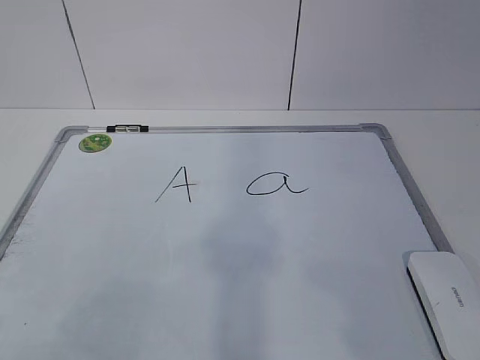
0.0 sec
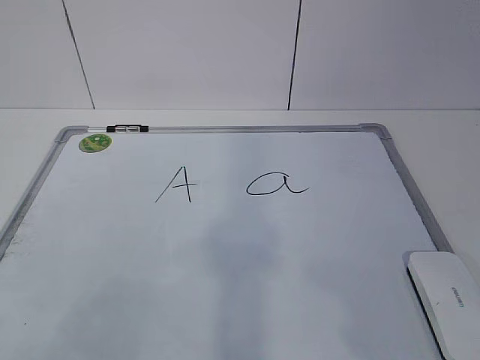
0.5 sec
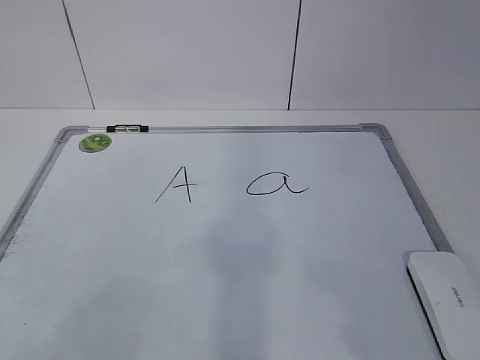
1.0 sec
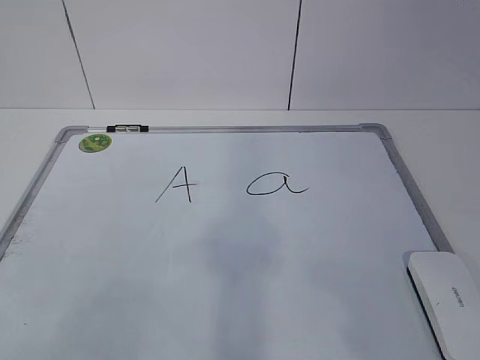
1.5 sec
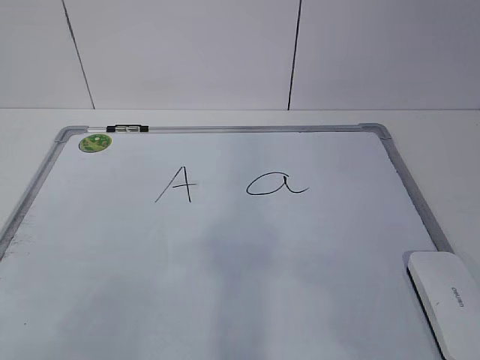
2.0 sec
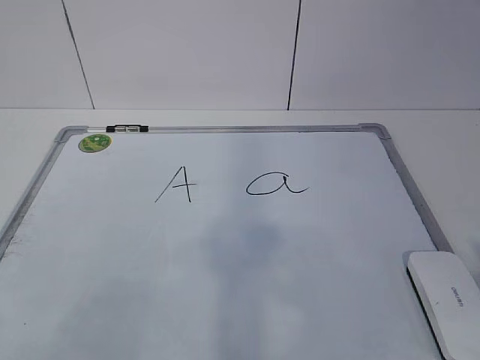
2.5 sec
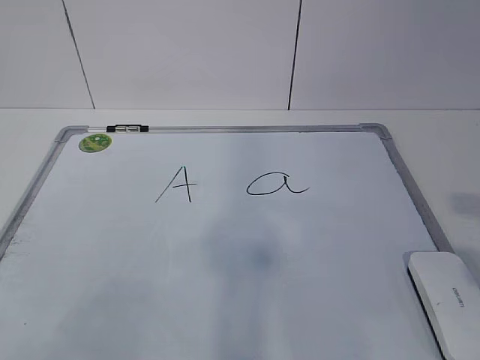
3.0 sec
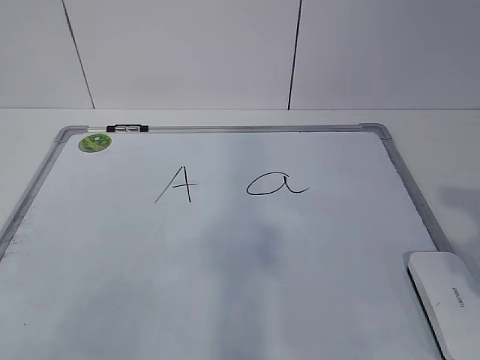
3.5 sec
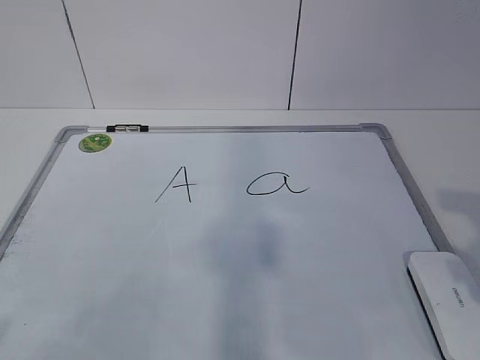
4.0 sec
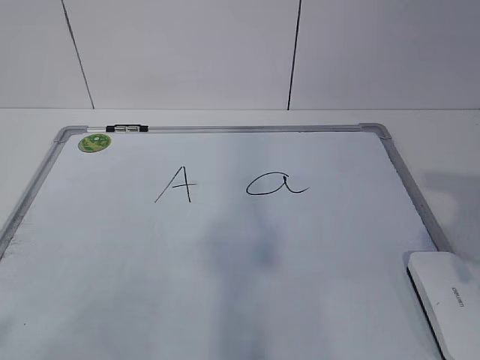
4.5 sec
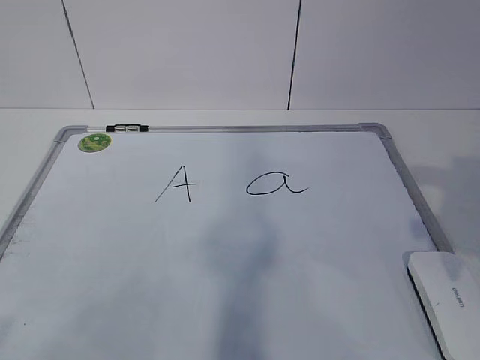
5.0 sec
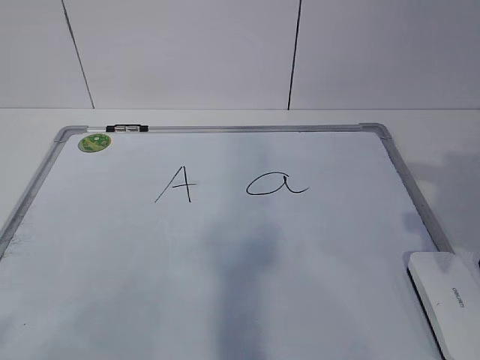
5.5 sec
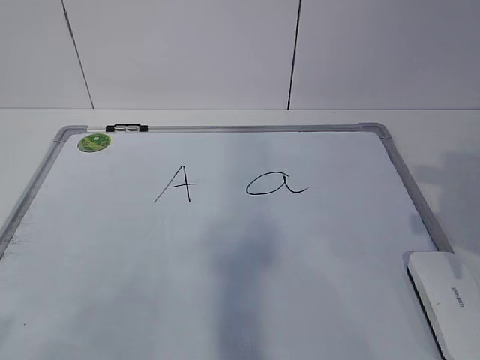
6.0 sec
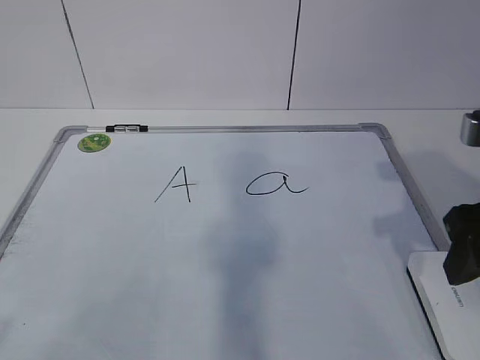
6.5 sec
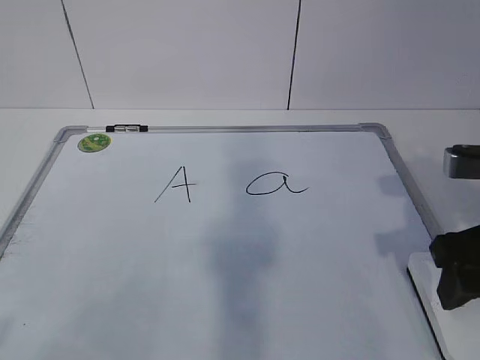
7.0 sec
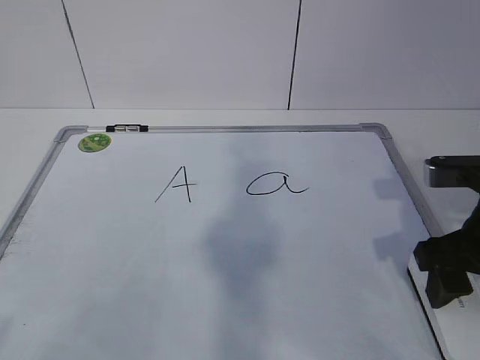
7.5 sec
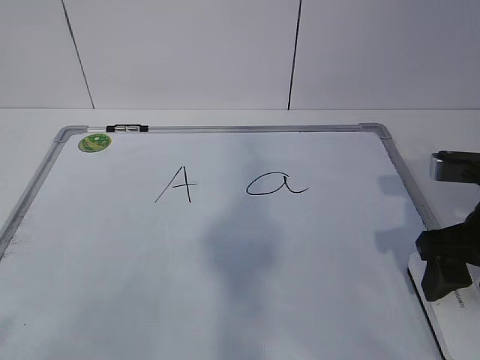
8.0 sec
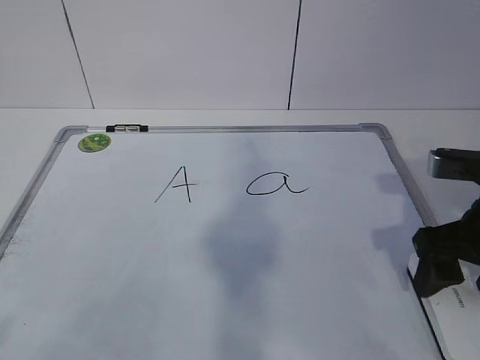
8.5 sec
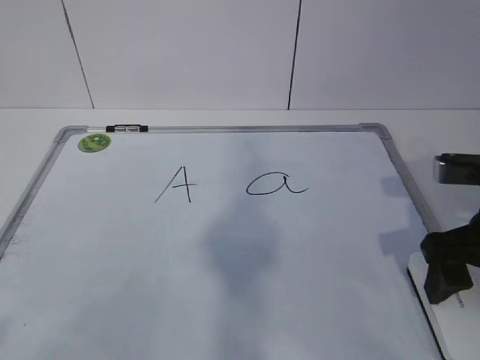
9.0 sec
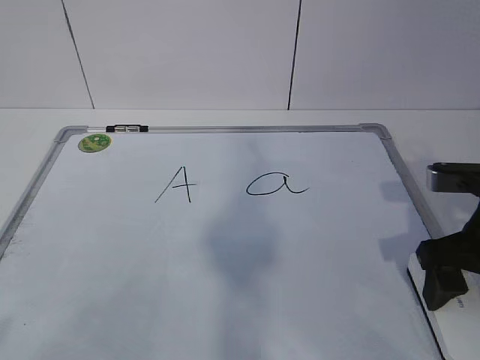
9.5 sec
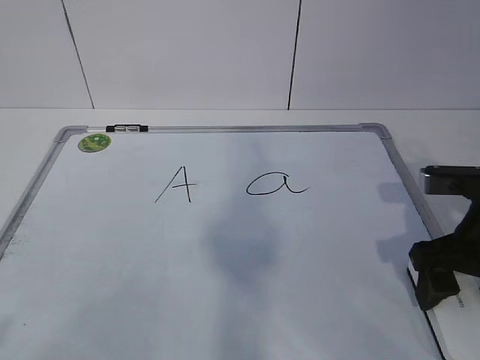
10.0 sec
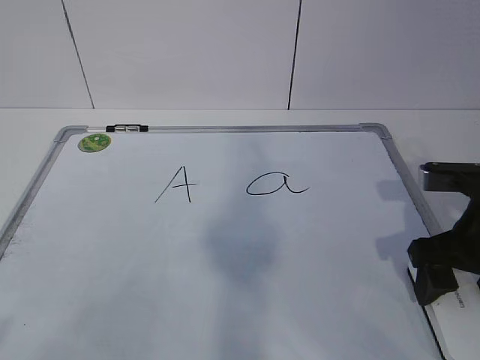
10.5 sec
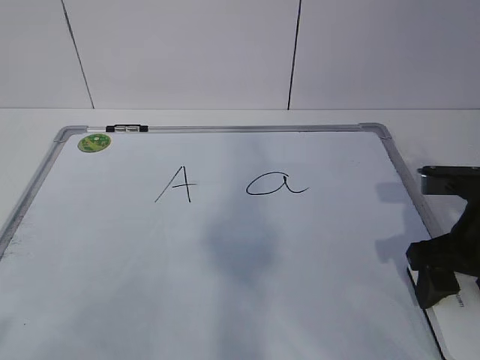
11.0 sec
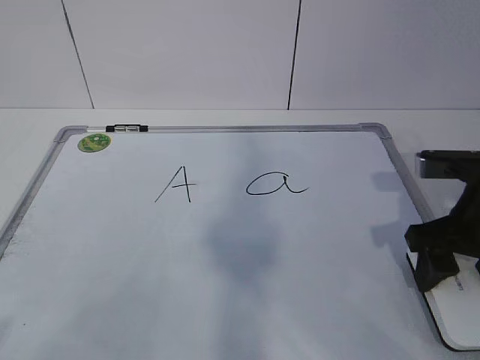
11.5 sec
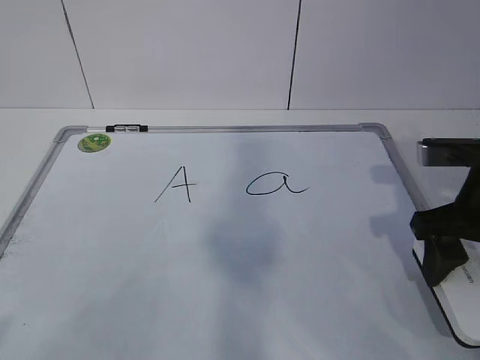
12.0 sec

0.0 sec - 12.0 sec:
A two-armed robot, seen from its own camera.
Task of the whole recording: pick up the eraser on the blackboard and erase the letter "a".
Step, 0.0 sec - 9.0 sec: Grab the eraser with your right hand.
6.0 sec - 8.0 sec: The right gripper goes some 5 cm downward.
8.0 sec - 10.0 sec: The right gripper opens.
10.0 sec - 12.0 sec: The right gripper closes its fingers.

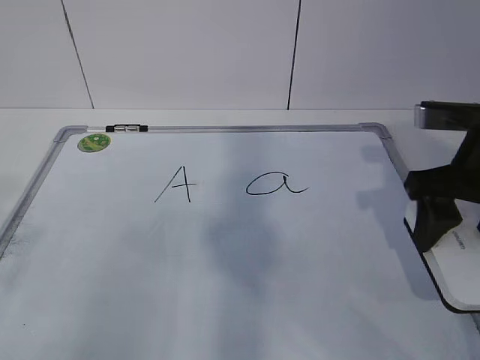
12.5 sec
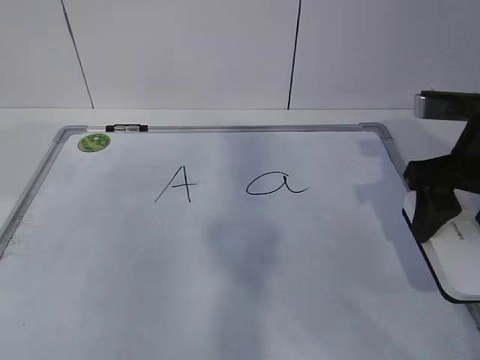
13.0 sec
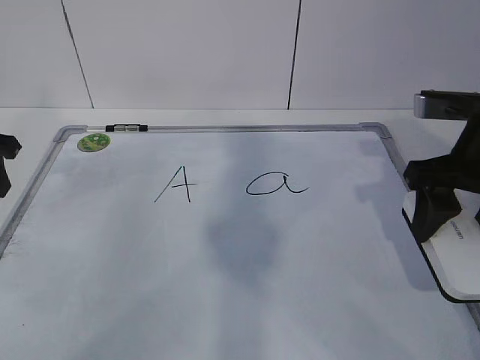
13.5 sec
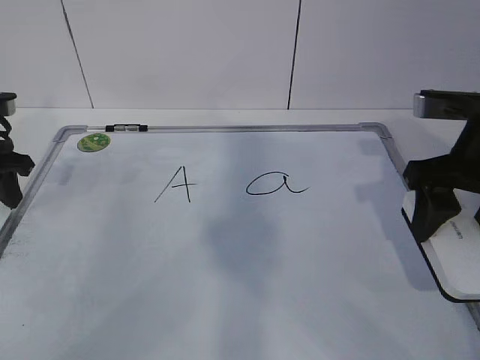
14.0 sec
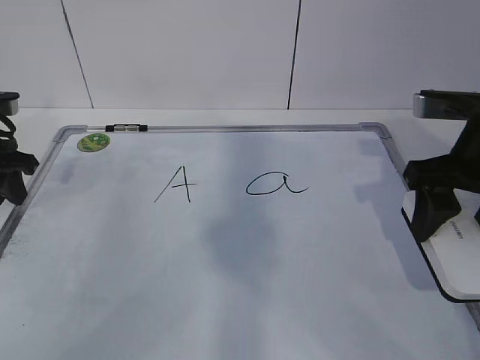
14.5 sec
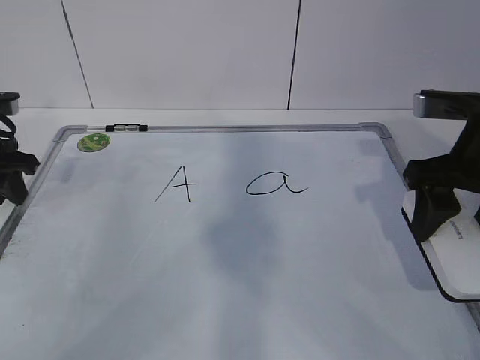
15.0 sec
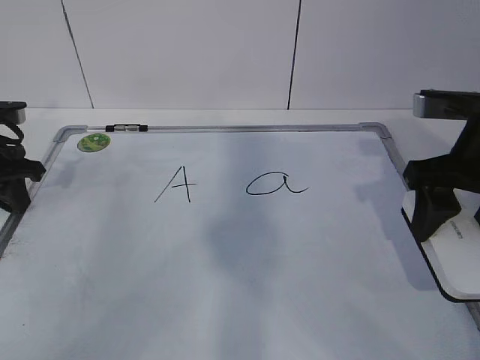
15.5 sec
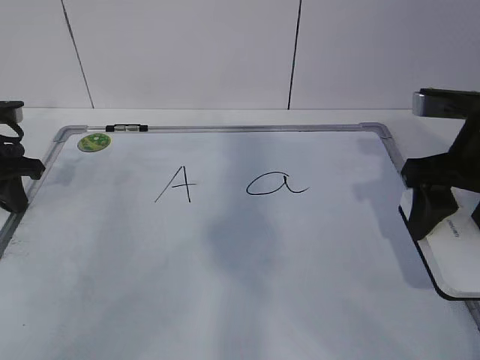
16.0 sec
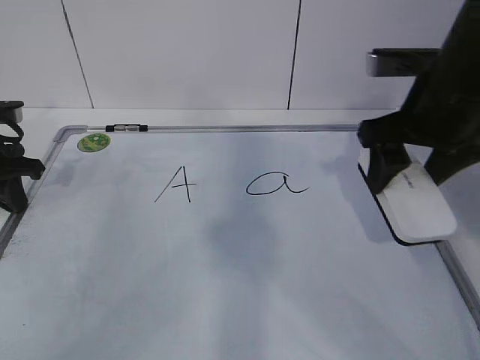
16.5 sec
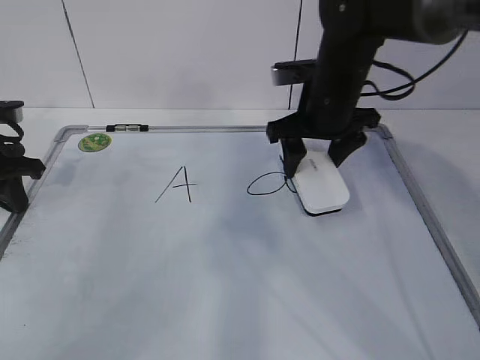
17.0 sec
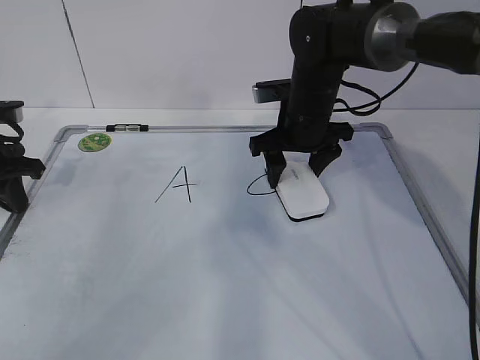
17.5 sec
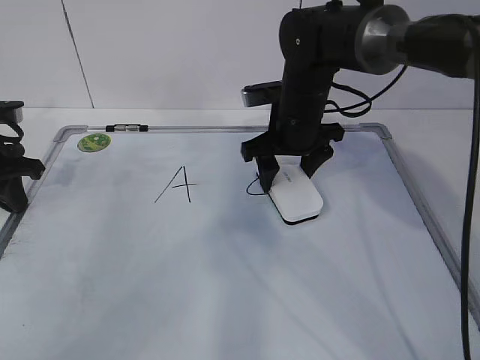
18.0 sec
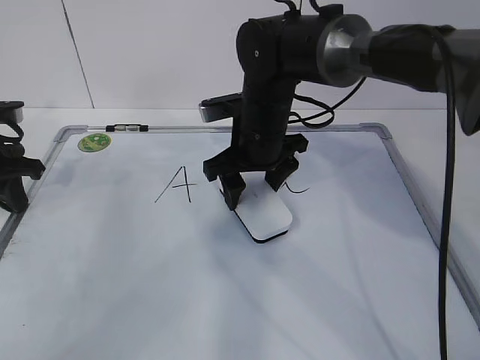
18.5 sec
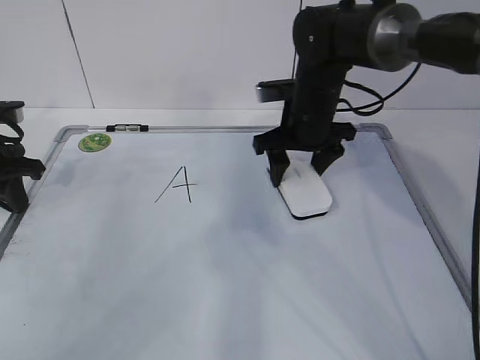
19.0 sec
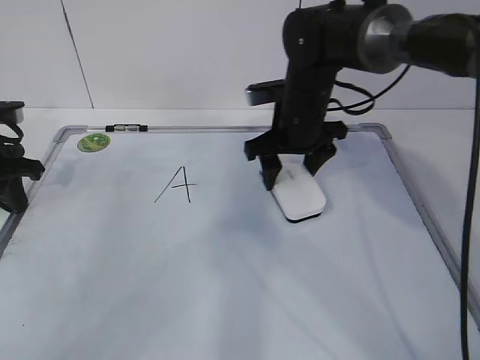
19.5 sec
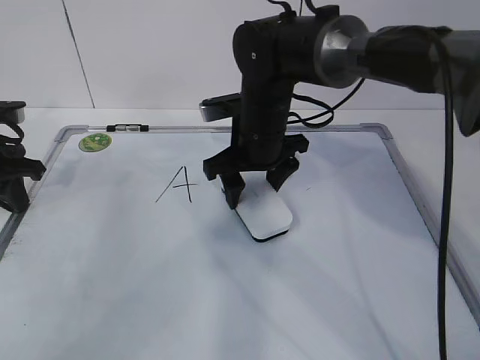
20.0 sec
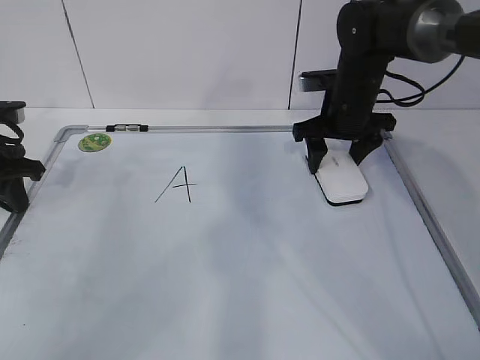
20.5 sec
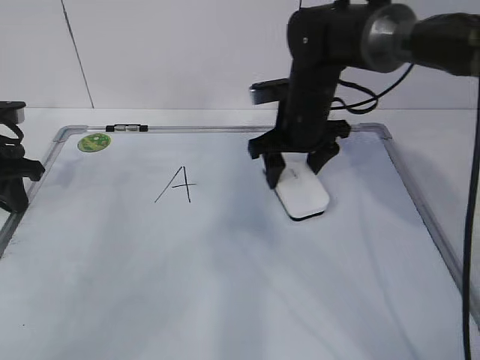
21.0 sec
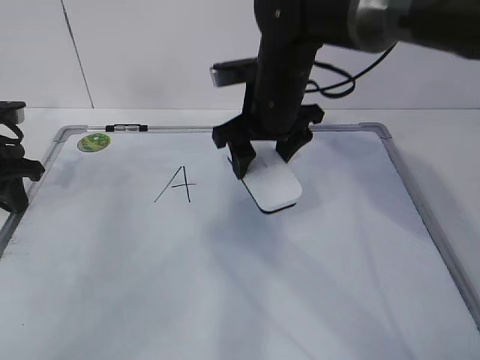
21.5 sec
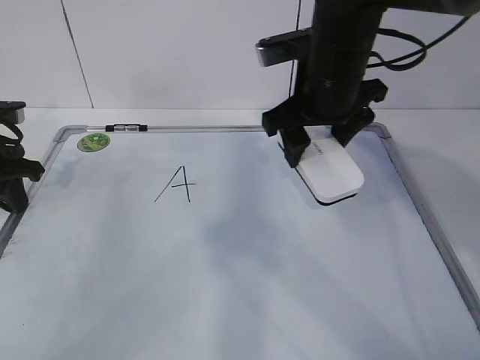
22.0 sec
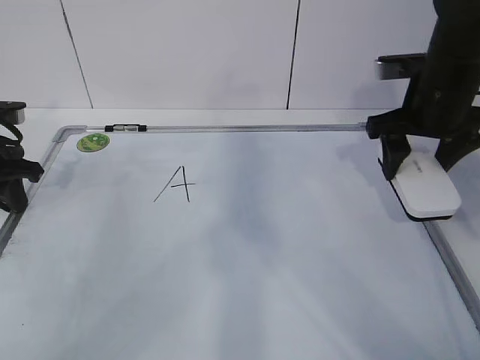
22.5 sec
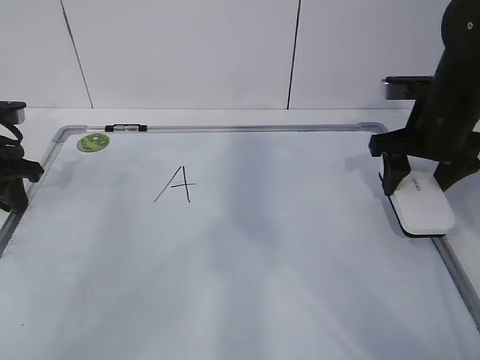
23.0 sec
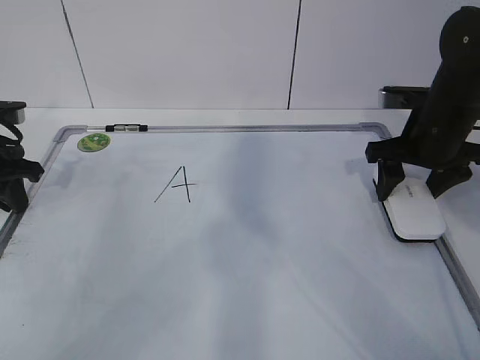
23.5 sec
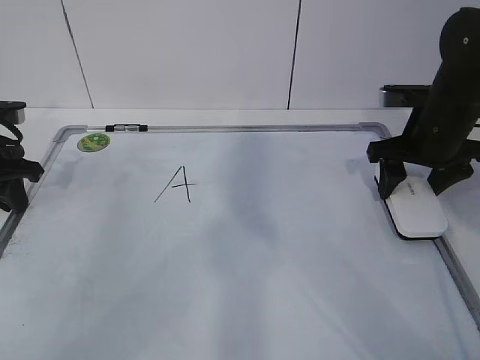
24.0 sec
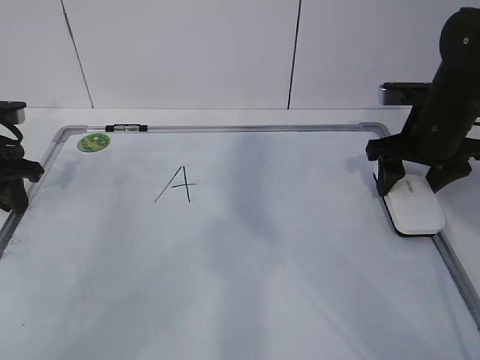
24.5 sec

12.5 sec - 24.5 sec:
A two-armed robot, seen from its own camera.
Task of the whole recording: pick up the eraser on the blackboard and erase the letter "a".
Step, 13.5 sec - 17.5 sec: Erase the letter a with your right hand.
Step, 18.0 sec - 20.5 sec: Put down the eraser with your right hand.
12.5 sec - 14.5 sec: The left gripper heads forward and downward, covering approximately 35 cm.
14.5 sec - 16.5 sec: The right gripper changes place by approximately 5 cm. The left gripper closes up.
16.5 sec - 18.5 sec: The right gripper is displaced to the left, downward and forward by approximately 20 cm.
18.5 sec - 20.5 sec: The right gripper moves left and right over approximately 15 cm, changing direction 2 times.
20.5 sec - 22.5 sec: The right gripper goes approximately 10 cm backward, to the right and upward.
22.5 sec - 24.5 sec: The grippers move only a little.

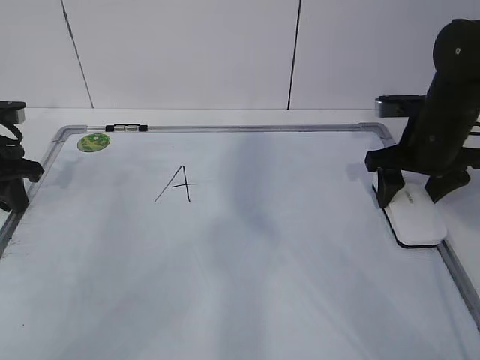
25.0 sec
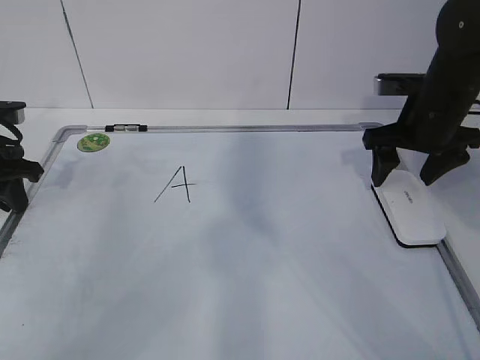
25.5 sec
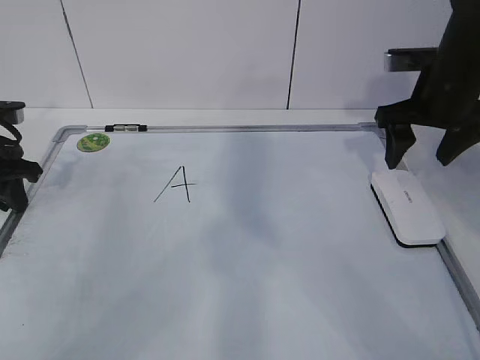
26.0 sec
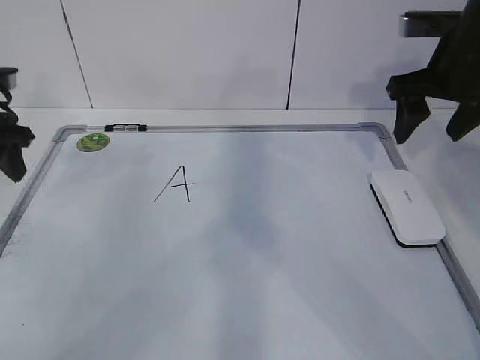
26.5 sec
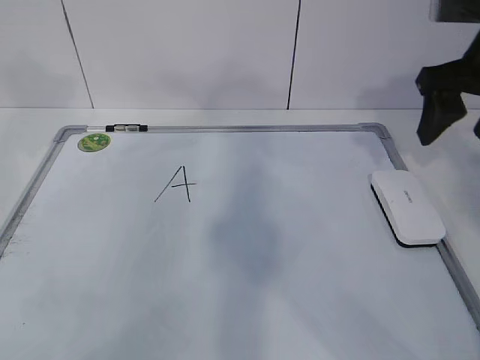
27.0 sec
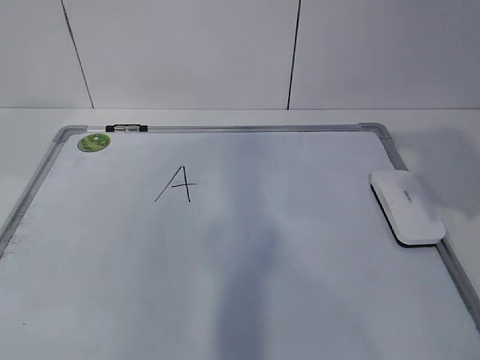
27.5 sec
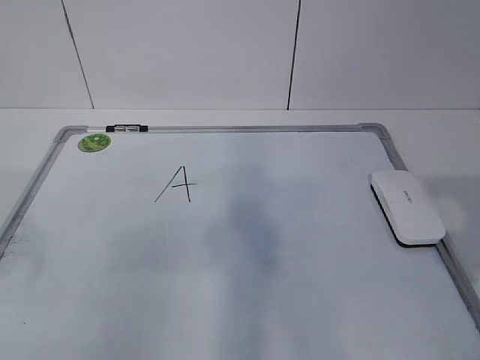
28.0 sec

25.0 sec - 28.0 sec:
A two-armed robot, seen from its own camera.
Task of the whole recording: pick up the eraser on the blackboard and erase the letter "a".
25.0 sec - 26.5 sec: The right gripper travels upward by some 10 cm, and opens up. Meanwhile the left gripper changes place by approximately 5 cm, and opens.
26.5 sec - 28.0 sec: Both grippers travel together backward, about 30 cm. The right gripper closes its fingers.
